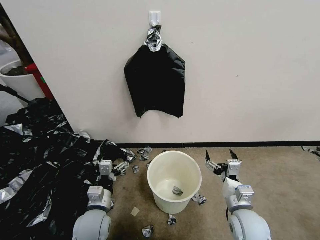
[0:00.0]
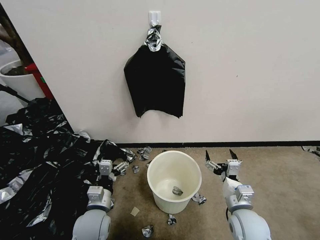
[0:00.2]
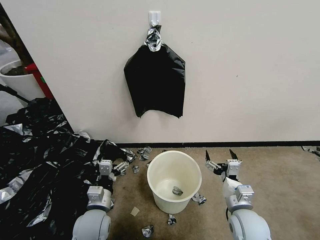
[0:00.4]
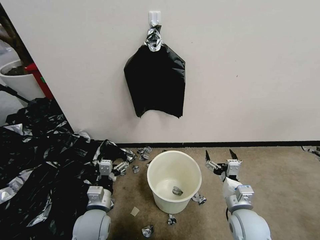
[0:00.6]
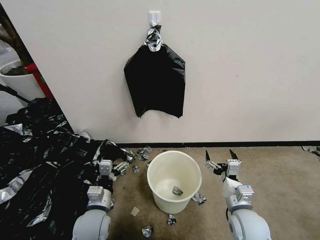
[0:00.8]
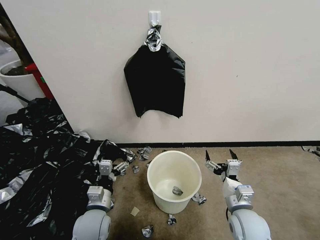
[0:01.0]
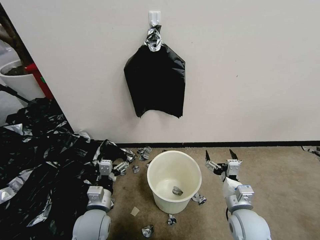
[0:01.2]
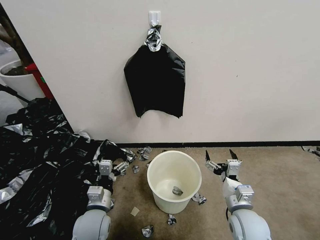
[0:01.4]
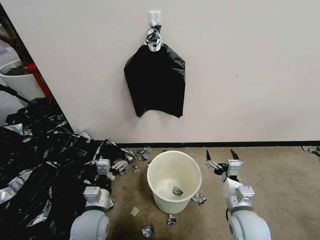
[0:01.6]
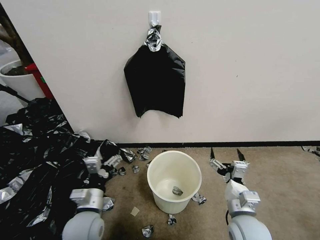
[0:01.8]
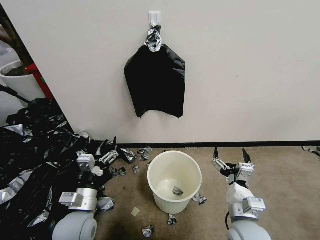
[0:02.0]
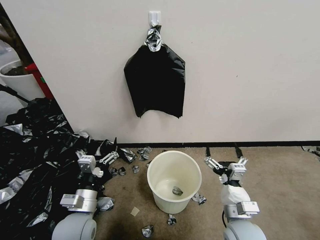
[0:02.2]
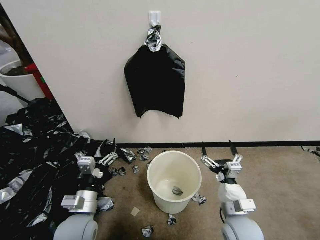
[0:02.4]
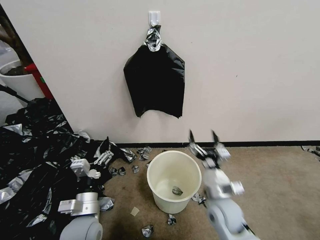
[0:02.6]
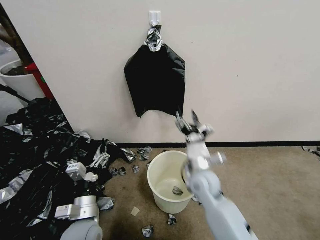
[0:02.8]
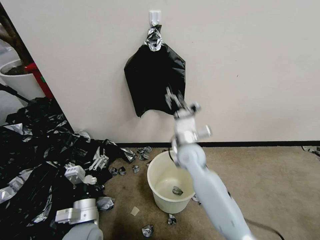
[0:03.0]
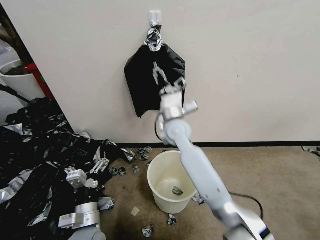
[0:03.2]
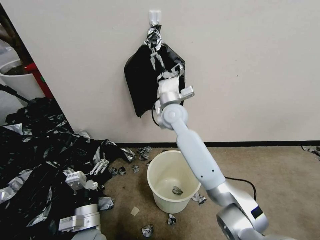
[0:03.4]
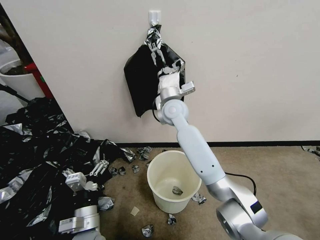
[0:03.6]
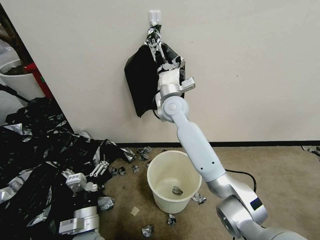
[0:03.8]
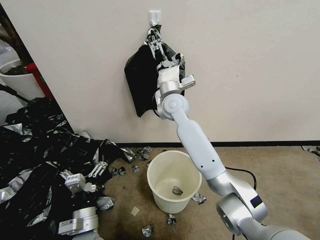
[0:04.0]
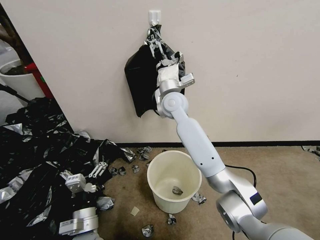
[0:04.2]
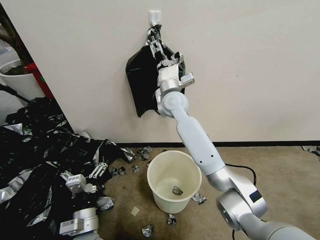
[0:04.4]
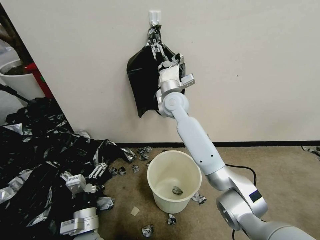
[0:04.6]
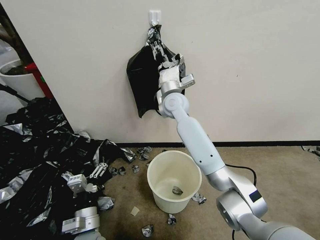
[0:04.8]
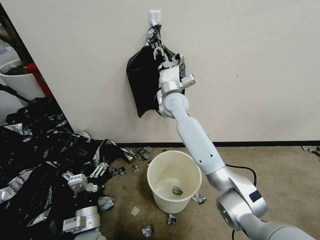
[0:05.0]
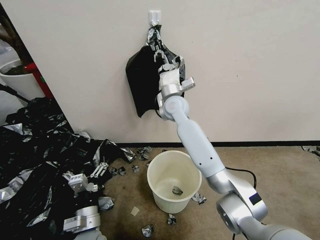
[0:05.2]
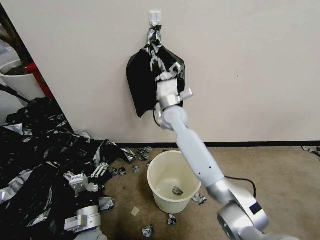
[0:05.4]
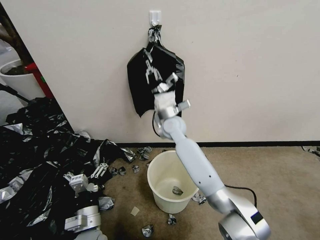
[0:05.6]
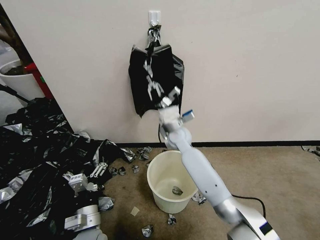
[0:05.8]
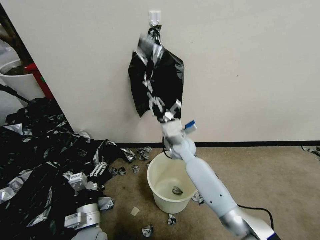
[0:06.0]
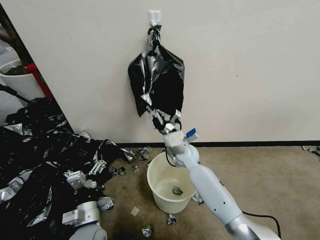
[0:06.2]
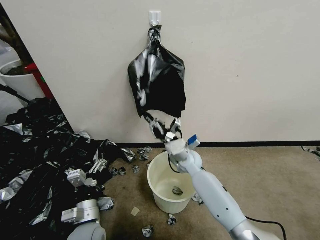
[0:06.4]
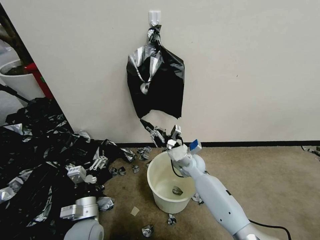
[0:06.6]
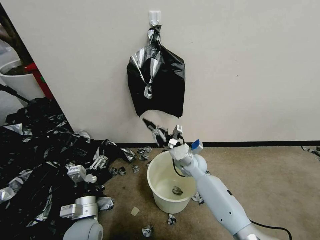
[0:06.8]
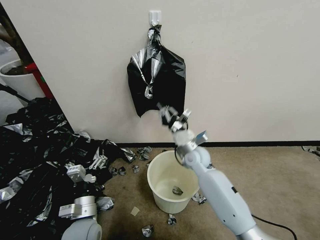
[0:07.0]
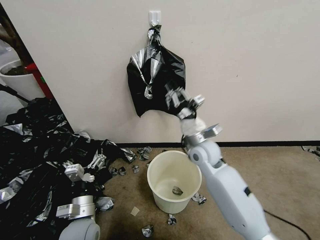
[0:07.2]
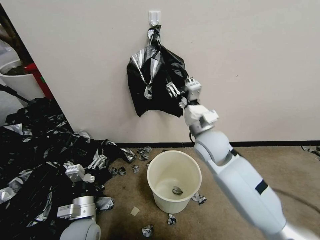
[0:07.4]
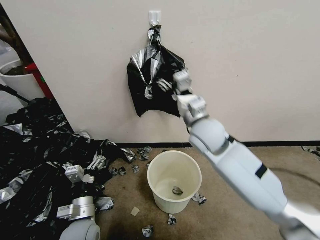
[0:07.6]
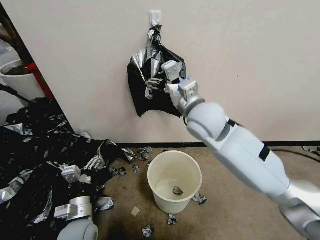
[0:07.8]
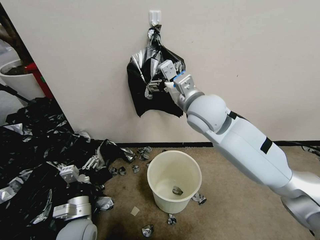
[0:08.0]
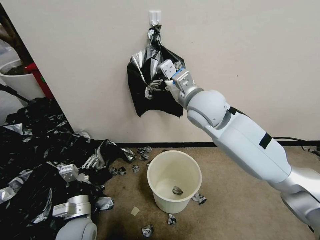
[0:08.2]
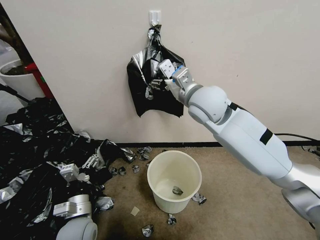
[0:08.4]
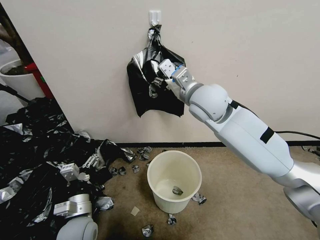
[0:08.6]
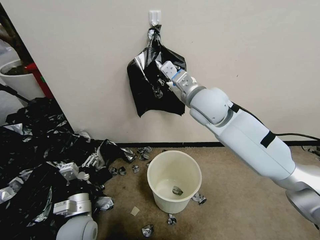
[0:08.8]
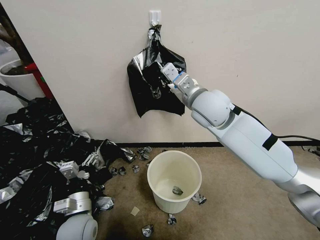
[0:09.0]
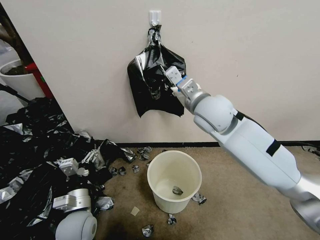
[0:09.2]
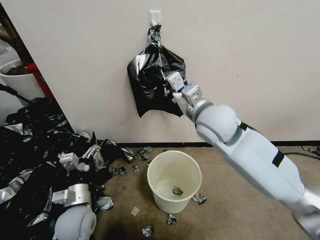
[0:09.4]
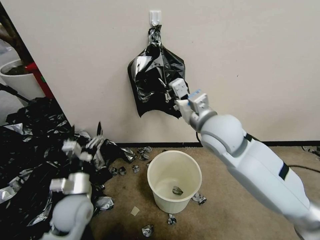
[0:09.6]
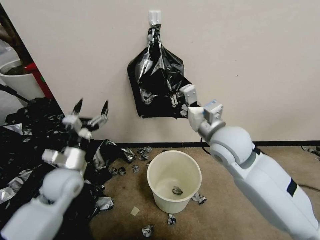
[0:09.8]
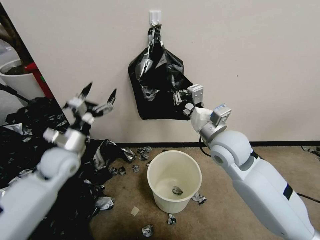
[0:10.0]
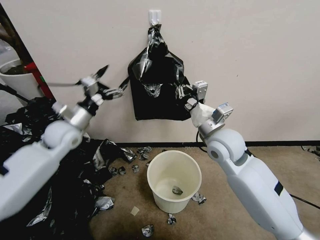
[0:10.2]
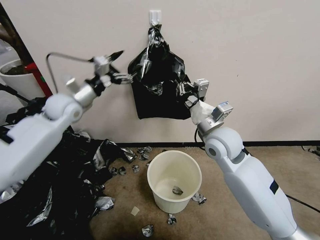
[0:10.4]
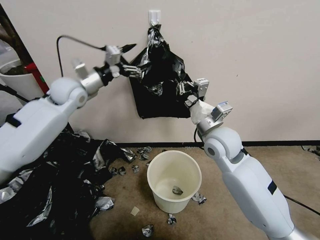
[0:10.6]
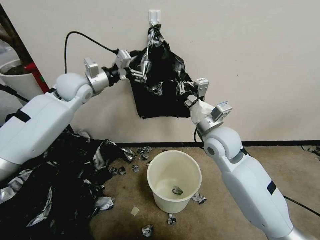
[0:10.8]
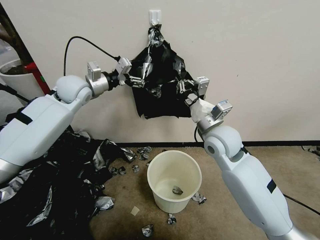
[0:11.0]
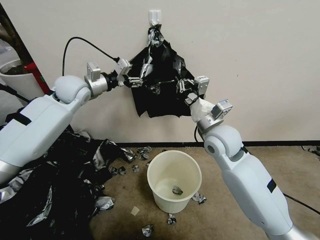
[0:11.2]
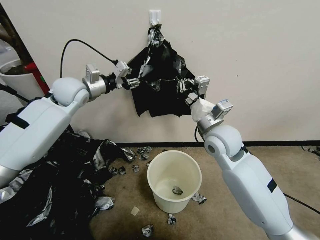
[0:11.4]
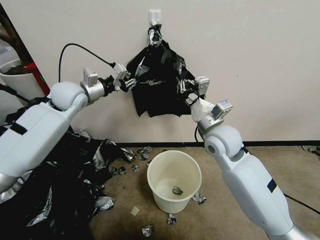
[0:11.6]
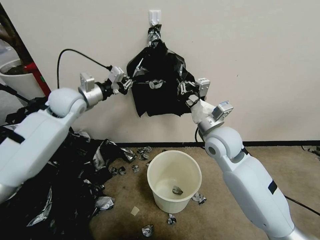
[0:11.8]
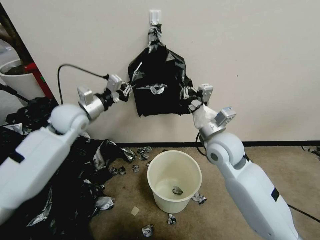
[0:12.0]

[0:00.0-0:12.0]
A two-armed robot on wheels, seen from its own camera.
Task of the whole recording: Place a trash bag onto the trash bin.
0:01.6 to 0:03.0: The right gripper is displaced forward, to the left and upward by roughly 25 cm.
0:03.0 to 0:04.4: The right gripper heads forward and upward, covering approximately 15 cm.
0:04.4 to 0:06.0: The right gripper shifts approximately 15 cm downward, and closes its fingers.
0:06.0 to 0:07.6: The right gripper heads upward and backward, covering roughly 20 cm, and opens.
0:07.6 to 0:09.0: The right gripper goes about 5 cm upward, and closes.
0:09.0 to 0:10.4: The right gripper is displaced downward by about 10 cm, while the left gripper moves forward and upward, some 35 cm.
0:10.4 to 0:12.0: The left gripper reaches roughly 5 cm forward, then returns, and closes its fingers.

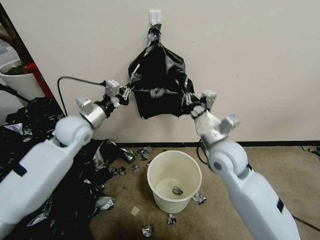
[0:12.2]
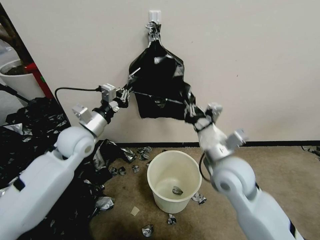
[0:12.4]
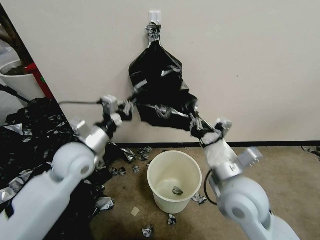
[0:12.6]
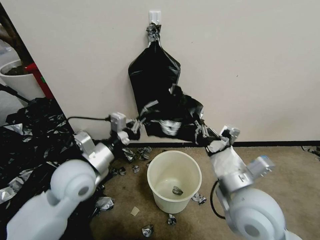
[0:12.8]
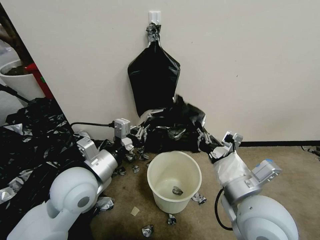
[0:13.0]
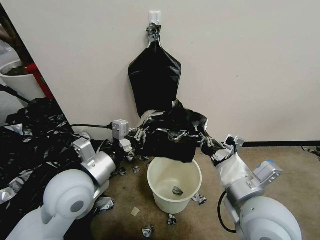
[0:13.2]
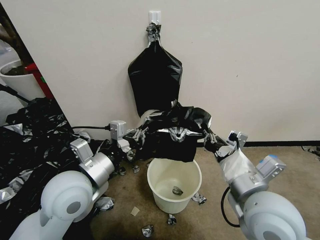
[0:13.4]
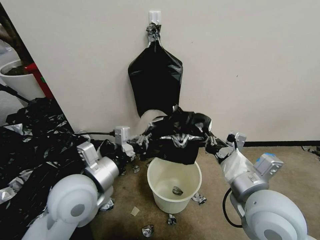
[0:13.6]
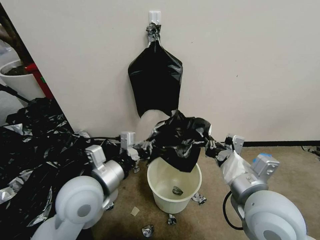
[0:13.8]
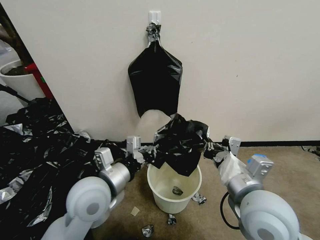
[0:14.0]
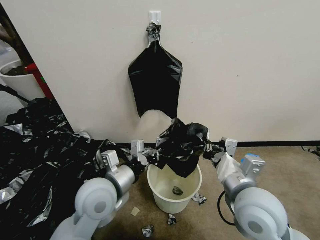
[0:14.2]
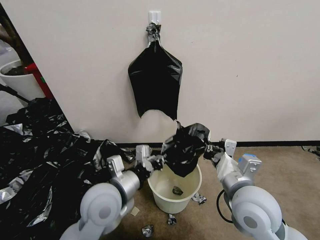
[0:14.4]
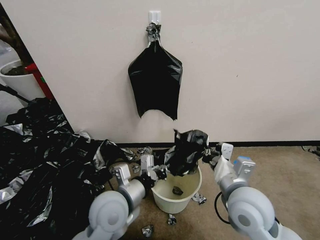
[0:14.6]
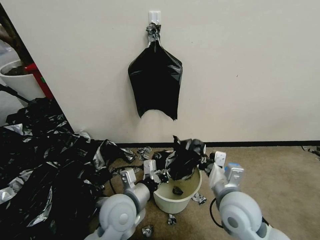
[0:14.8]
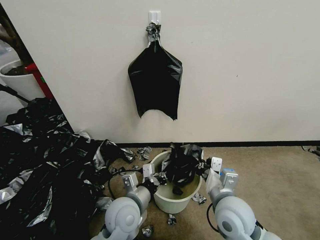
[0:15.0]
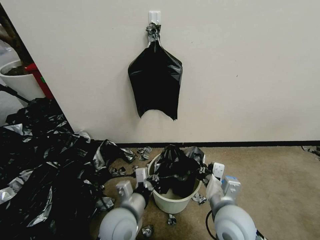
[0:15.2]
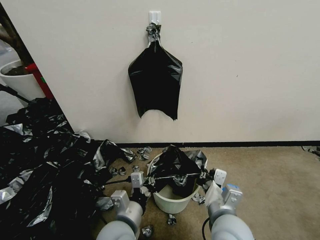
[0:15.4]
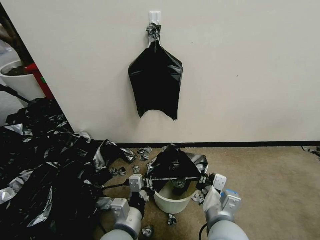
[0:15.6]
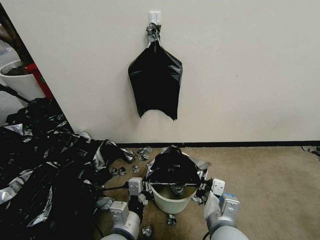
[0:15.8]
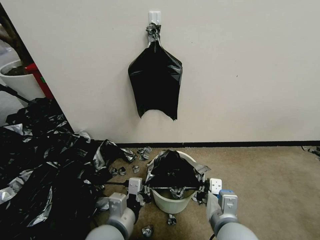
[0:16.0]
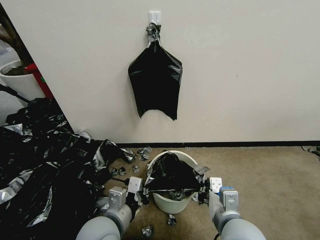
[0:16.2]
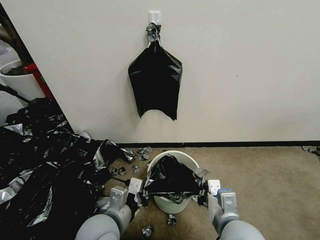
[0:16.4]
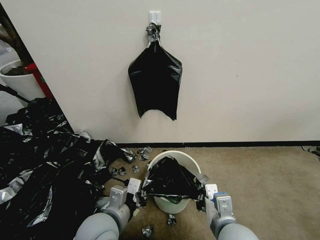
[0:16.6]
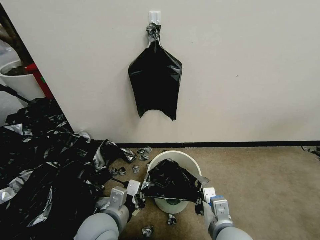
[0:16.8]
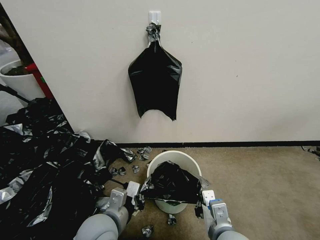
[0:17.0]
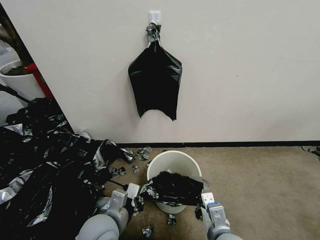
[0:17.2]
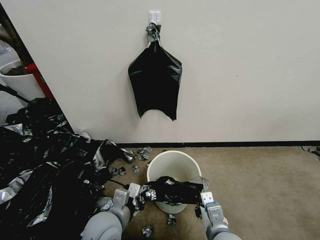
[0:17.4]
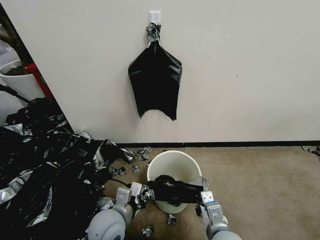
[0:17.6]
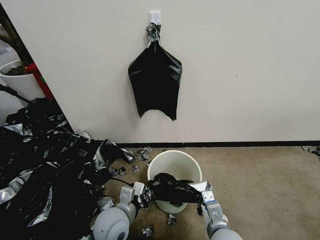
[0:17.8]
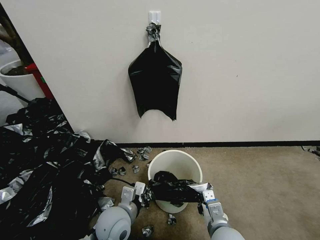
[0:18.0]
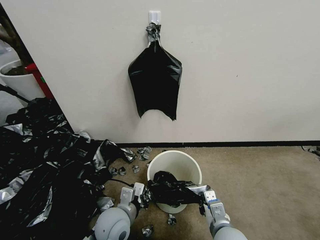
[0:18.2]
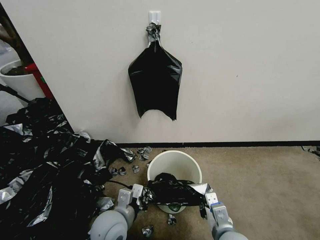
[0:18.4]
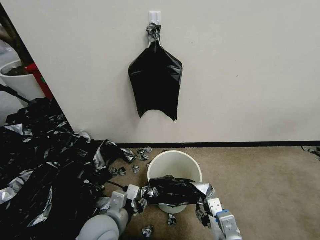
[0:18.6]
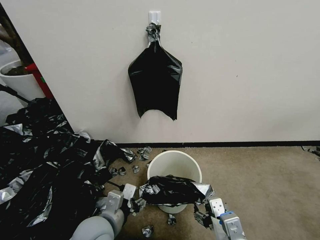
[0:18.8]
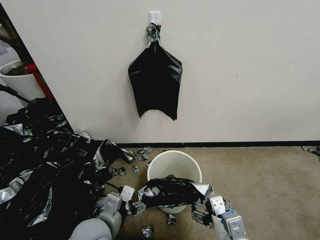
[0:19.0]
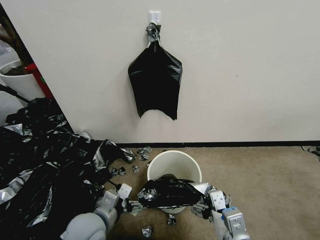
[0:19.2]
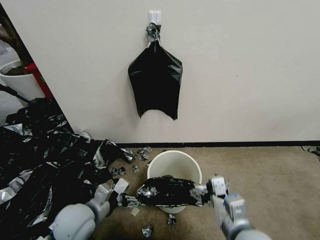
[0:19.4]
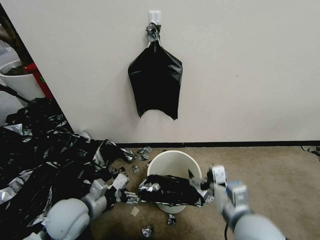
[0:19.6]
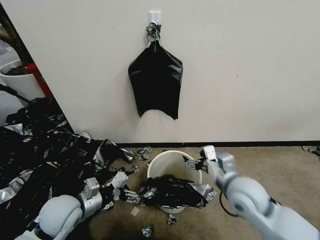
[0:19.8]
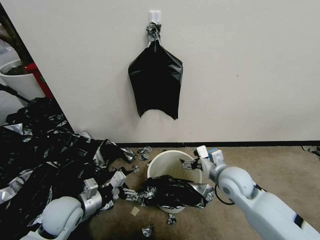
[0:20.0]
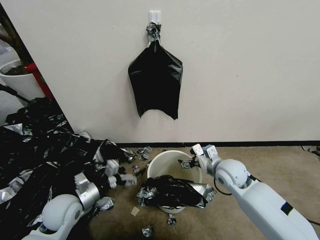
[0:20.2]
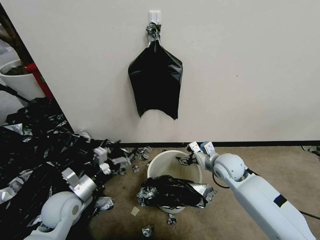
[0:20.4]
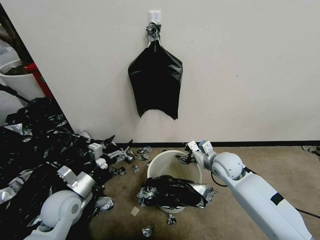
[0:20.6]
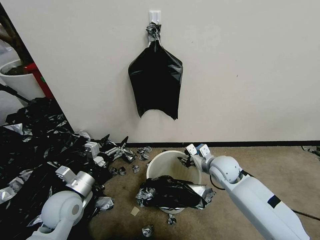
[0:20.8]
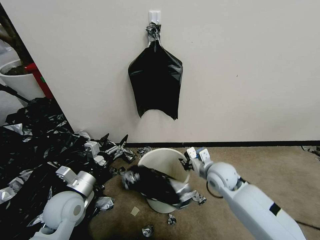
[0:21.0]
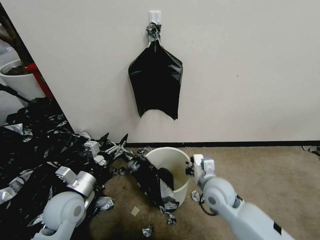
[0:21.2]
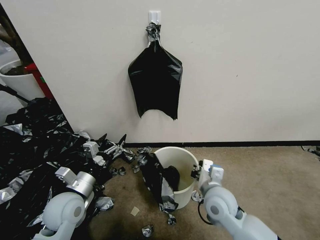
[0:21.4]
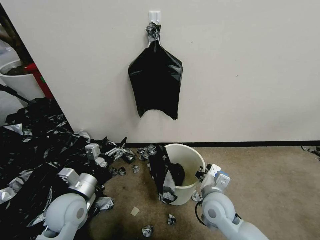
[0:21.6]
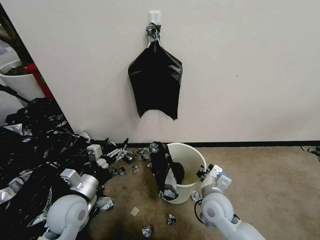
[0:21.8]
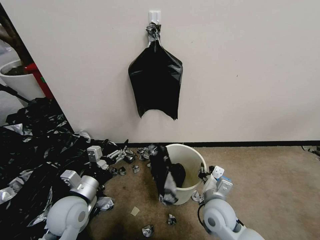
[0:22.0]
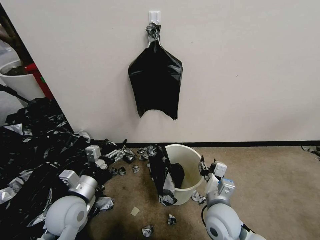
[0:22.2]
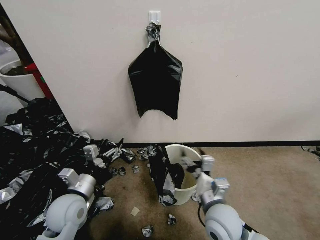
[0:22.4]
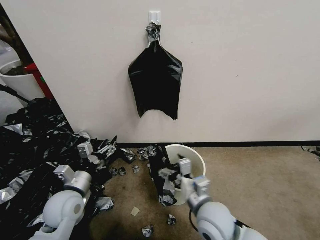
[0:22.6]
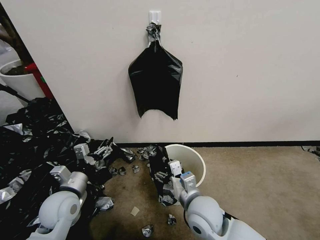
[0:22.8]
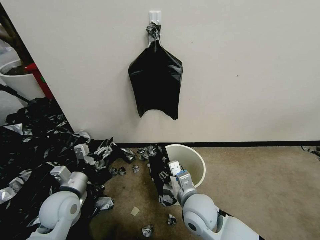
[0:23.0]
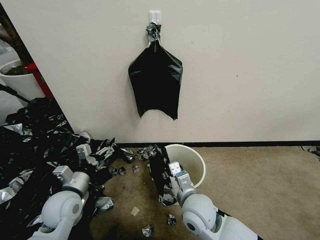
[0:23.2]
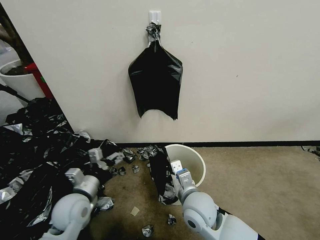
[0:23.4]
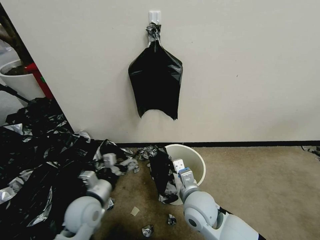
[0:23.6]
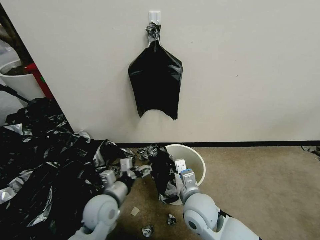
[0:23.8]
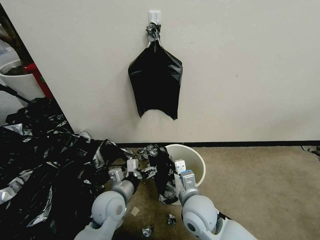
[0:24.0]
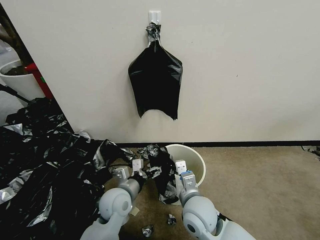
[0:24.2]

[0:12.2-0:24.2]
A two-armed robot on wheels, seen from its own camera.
Task of the whole recording: Place a trash bag onto the trash bin.
0:12.2 to 0:13.8: The left gripper is displaced backward and to the right by about 20 cm, while the right gripper goes roughly 15 cm backward.
0:13.8 to 0:15.2: The left gripper moves downward and to the right, some 15 cm. The right gripper heads downward, covering approximately 15 cm.
0:15.2 to 0:16.6: The left gripper shifts by about 5 cm. Meanwhile the right gripper moves approximately 5 cm.
0:16.6 to 0:18.2: The grippers both shift downward by approximately 10 cm.
0:18.2 to 0:19.8: The left gripper travels to the left by some 15 cm, and opens. The right gripper shifts about 15 cm upward and forward, and opens its fingers.
0:19.8 to 0:21.2: The right gripper heads downward and forward, covering some 10 cm, and closes its fingers.
0:21.2 to 0:22.6: The right gripper moves backward, about 10 cm, and opens up.
0:22.6 to 0:24.2: The left gripper shifts roughly 15 cm to the right, while the right gripper closes its fingers.
